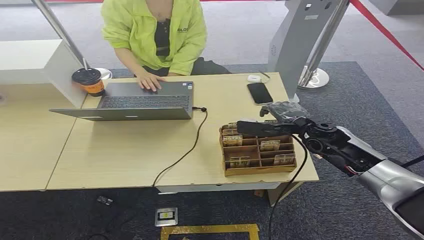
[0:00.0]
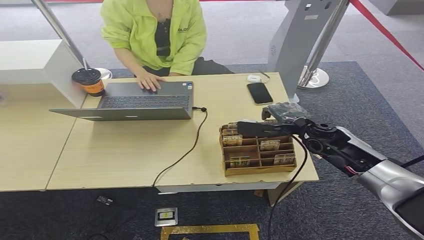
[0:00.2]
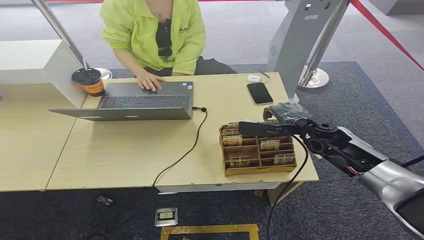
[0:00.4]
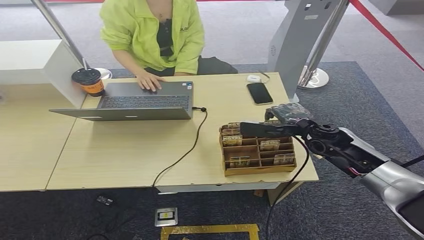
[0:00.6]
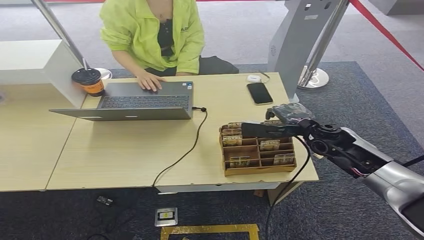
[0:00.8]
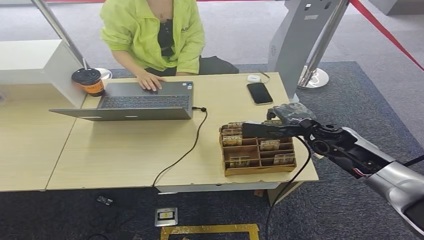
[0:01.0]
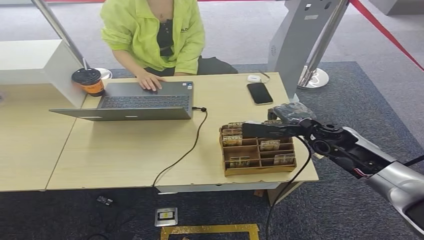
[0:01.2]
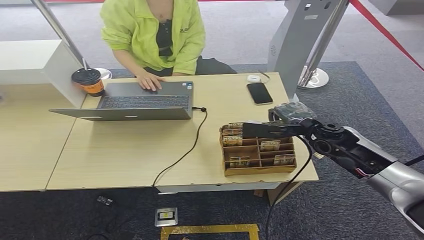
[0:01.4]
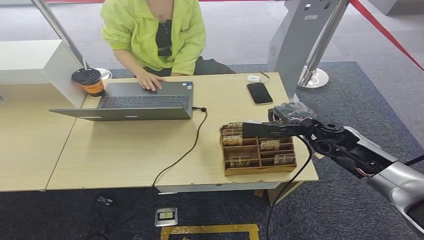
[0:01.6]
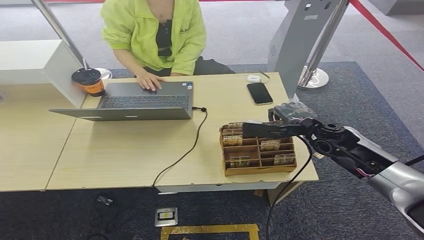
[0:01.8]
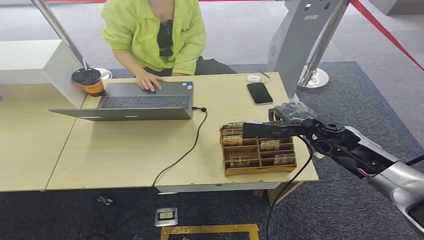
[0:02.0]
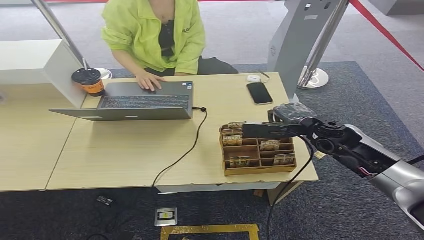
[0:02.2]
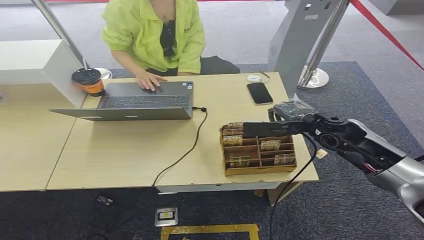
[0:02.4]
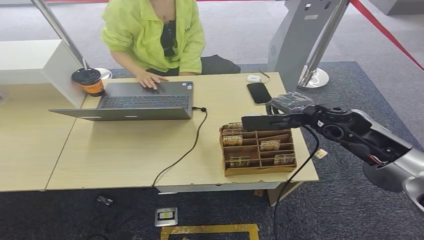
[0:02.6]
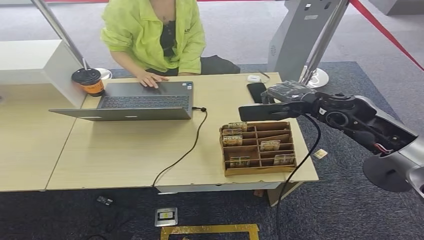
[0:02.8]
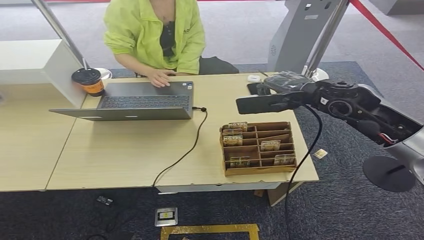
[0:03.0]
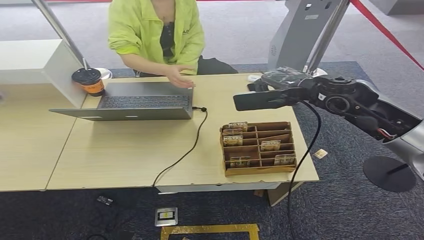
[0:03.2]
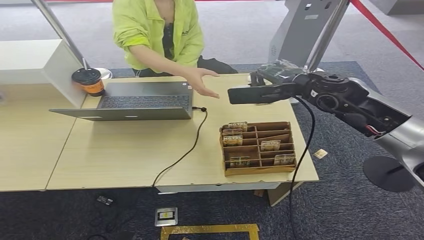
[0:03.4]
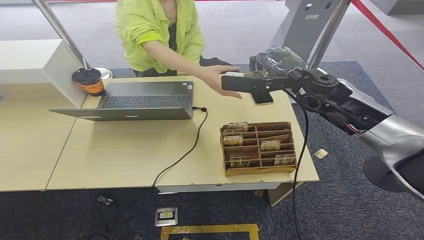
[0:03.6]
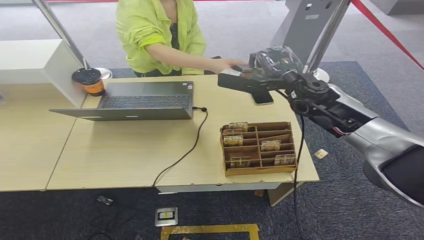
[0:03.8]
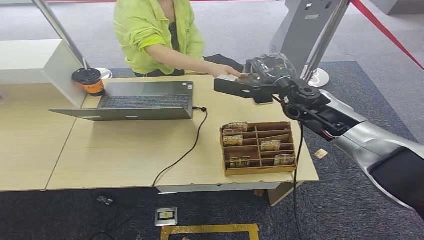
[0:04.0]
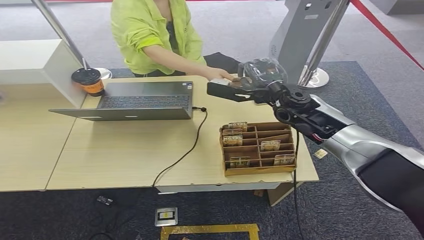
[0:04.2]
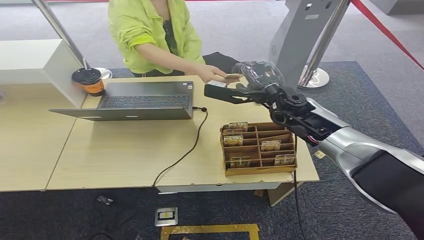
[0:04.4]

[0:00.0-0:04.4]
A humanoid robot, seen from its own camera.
Step, 0:00.0 to 0:02.4: Pick up the room card from the card holder.
Step, 0:02.6 to 0:04.4: Hand the room card to the target.
0:01.4 to 0:03.0: The right hand is displaced upward by roughly 15 cm.
0:03.0 to 0:04.4: The right hand heads to the left and downward, covering about 10 cm.
